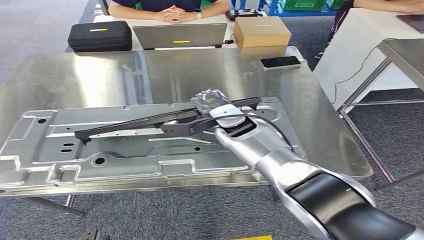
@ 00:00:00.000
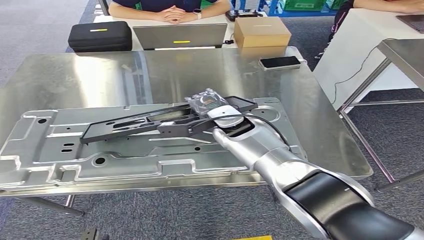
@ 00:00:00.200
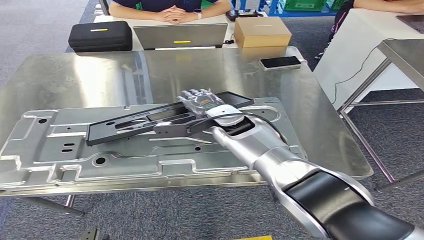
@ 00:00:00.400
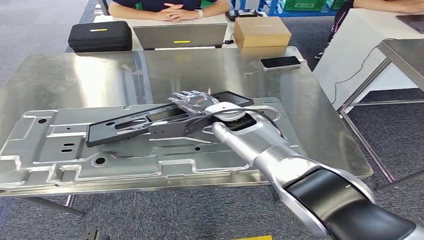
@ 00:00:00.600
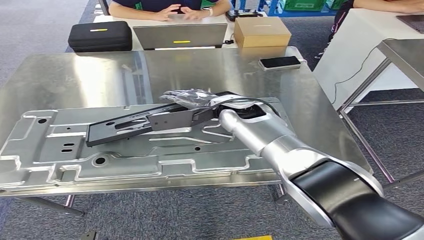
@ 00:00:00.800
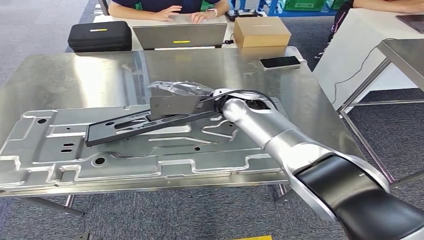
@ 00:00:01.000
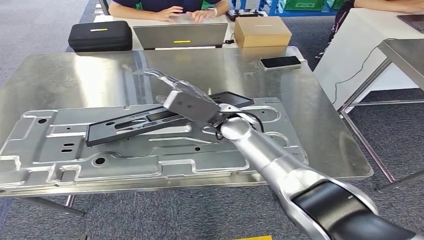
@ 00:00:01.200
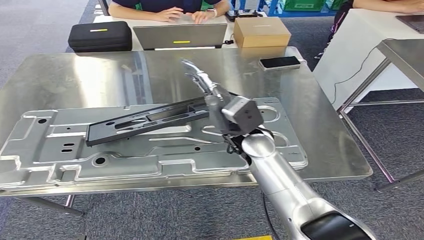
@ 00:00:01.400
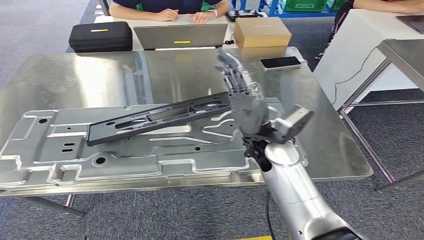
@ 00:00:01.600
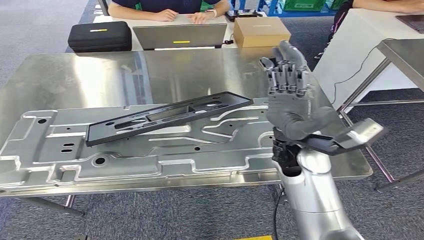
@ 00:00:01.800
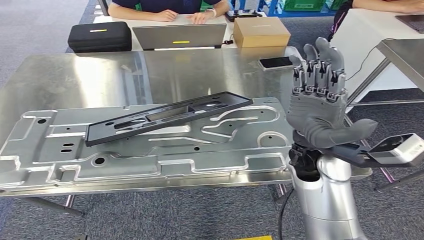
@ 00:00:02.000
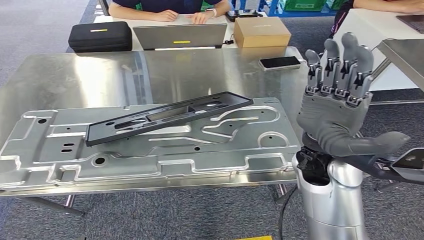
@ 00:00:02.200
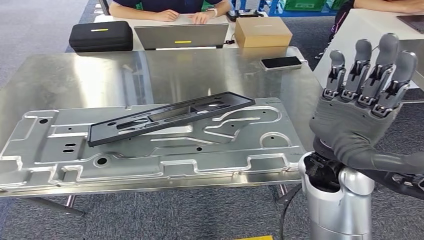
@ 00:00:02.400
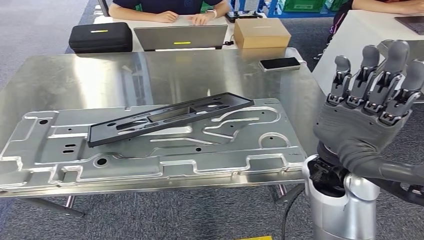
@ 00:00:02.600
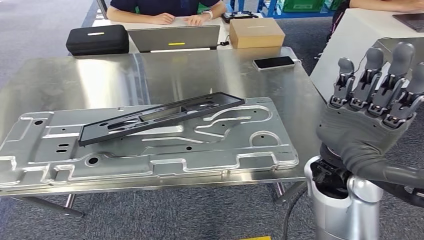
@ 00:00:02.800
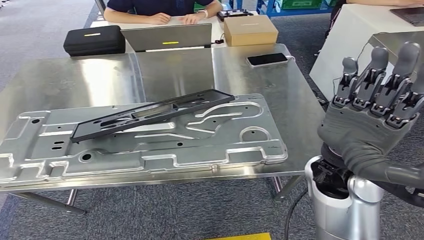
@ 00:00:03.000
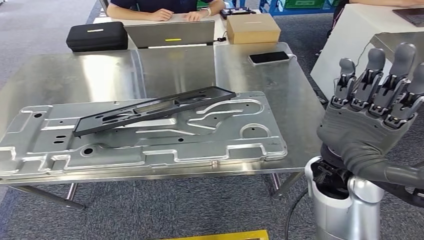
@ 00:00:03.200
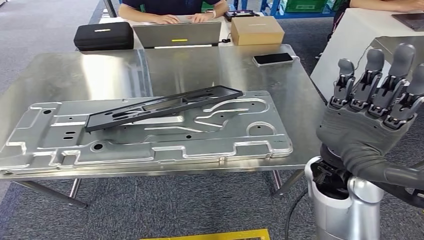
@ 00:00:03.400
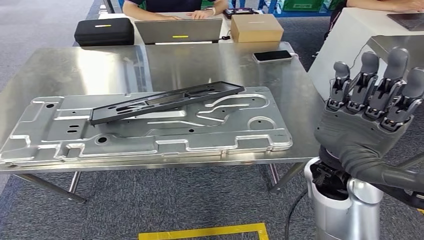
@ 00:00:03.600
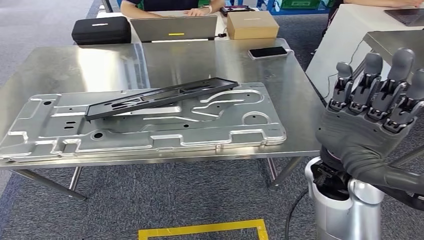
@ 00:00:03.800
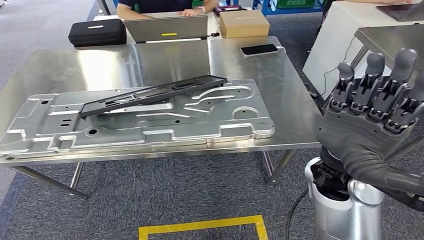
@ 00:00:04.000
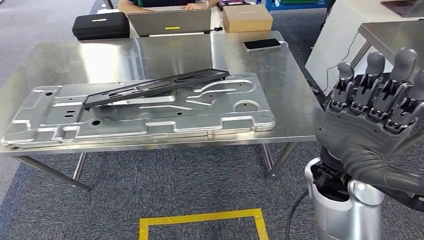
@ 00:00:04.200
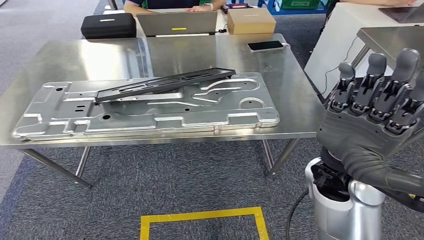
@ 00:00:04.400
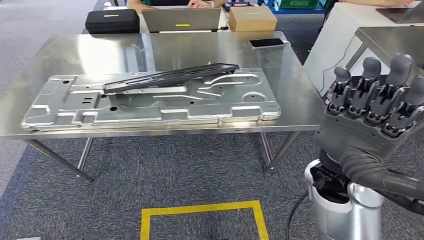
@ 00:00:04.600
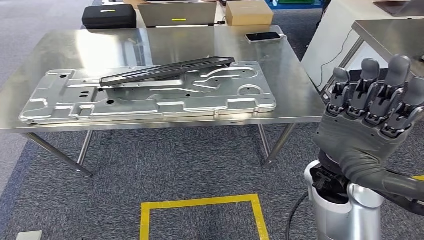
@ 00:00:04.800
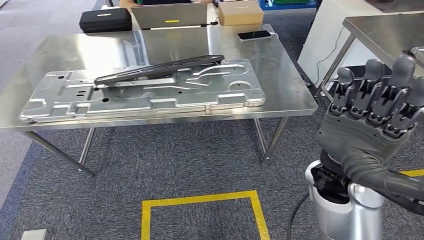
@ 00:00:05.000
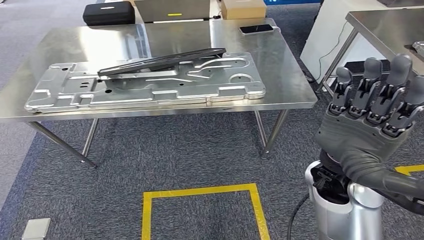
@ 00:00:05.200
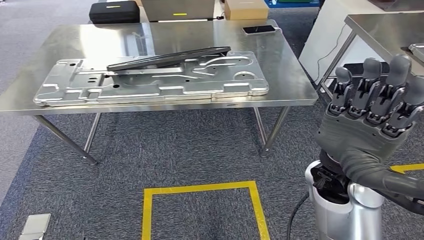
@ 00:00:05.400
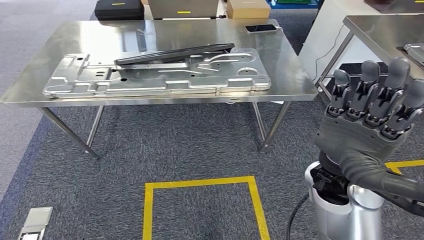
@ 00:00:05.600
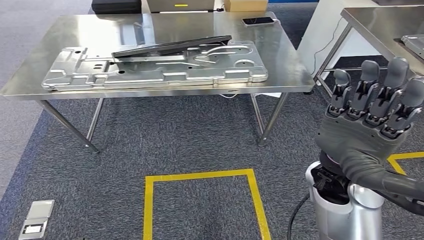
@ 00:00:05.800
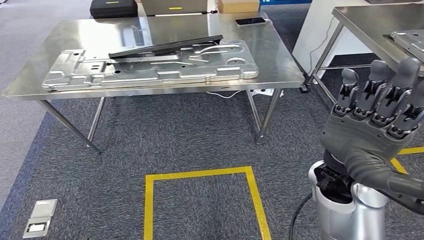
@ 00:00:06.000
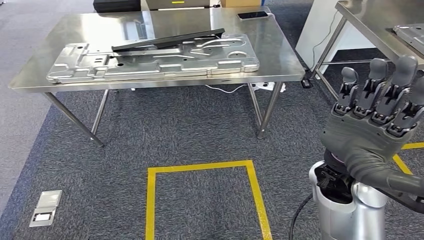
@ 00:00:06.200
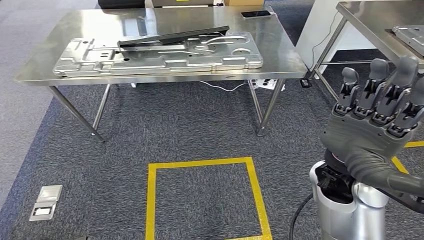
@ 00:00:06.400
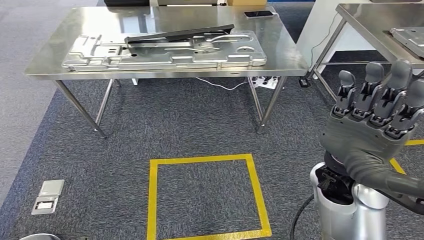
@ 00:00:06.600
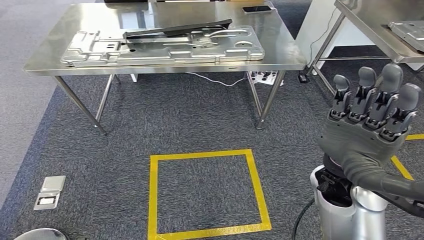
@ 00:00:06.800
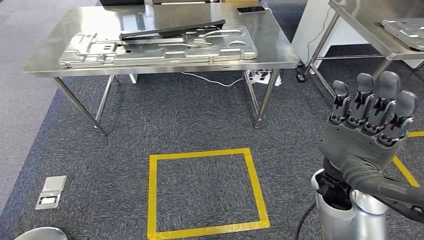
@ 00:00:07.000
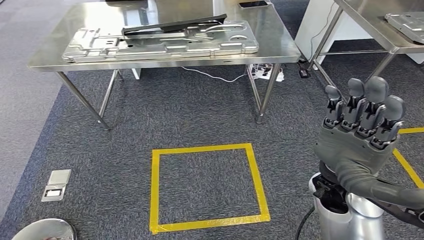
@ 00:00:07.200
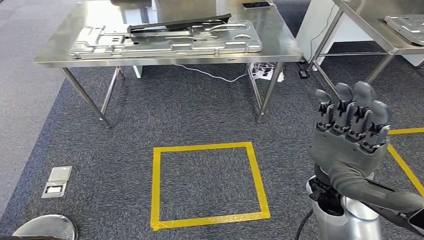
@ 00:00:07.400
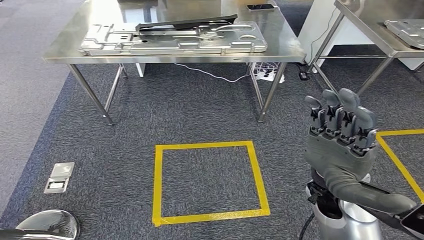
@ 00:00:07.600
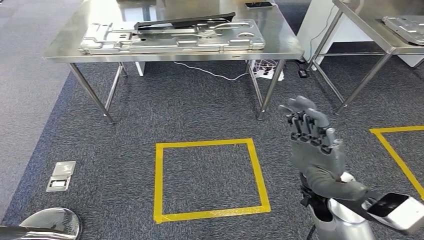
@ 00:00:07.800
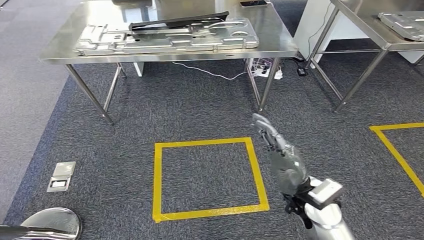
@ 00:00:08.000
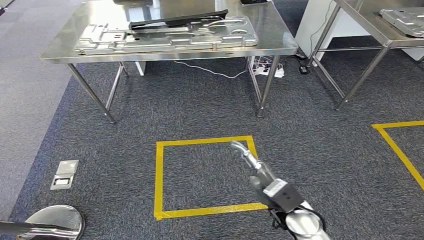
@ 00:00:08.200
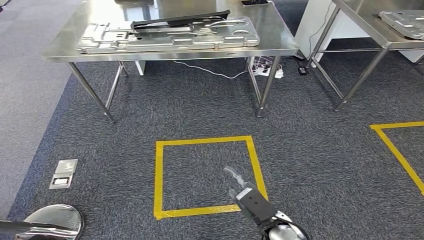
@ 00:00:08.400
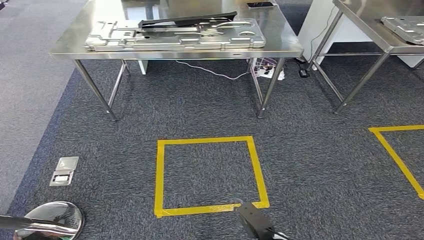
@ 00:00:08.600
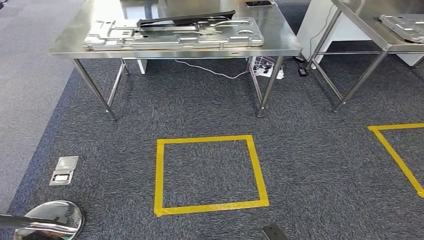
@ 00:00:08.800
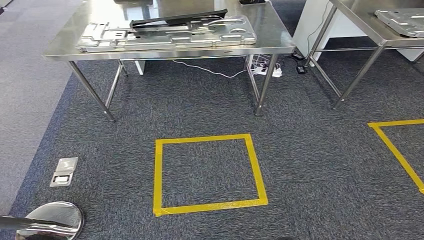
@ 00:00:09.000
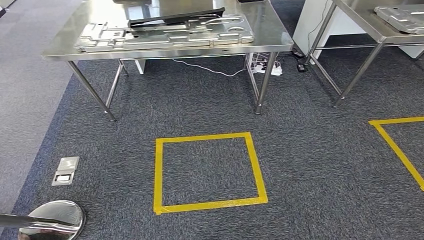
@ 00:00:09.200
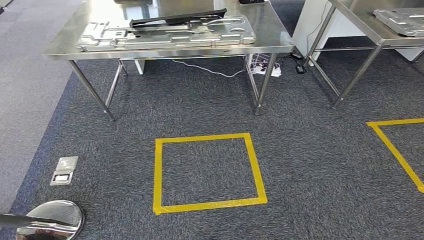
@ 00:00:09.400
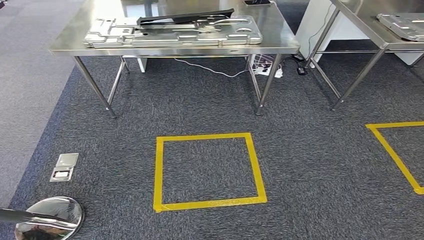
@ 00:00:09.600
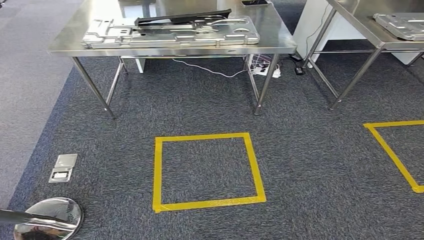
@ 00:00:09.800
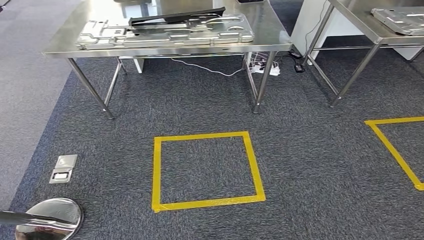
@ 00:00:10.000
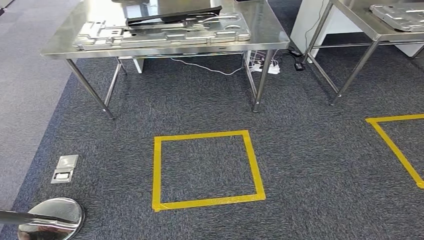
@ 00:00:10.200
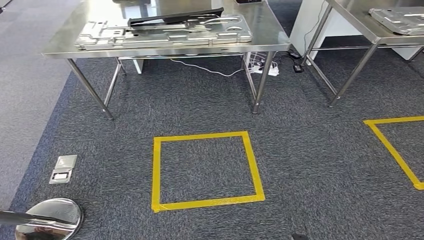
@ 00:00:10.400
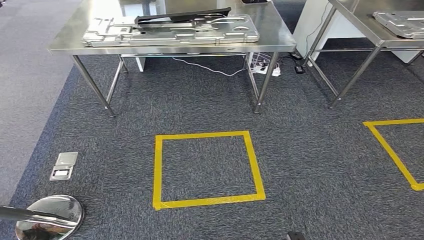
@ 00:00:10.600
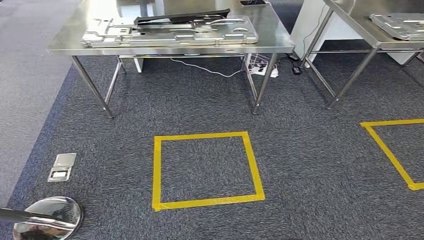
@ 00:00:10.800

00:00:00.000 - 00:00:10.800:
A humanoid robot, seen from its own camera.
Step, 00:00:02.000 - 00:00:10.600: Return to the initial position at the workbench.
00:00:00.000 - 00:00:01.600: The right hand shifts roughly 10 cm backward.
00:00:09.200 - 00:00:10.800: The left hand heads backward, covering roughly 5 cm.
